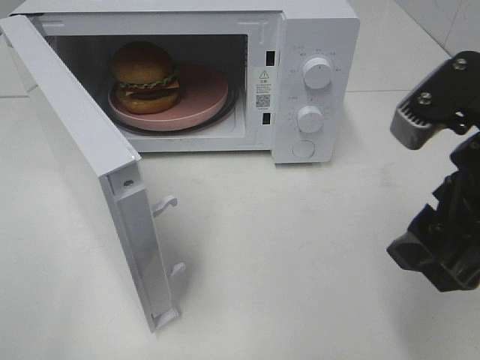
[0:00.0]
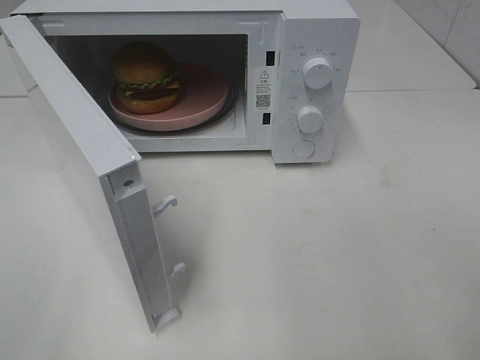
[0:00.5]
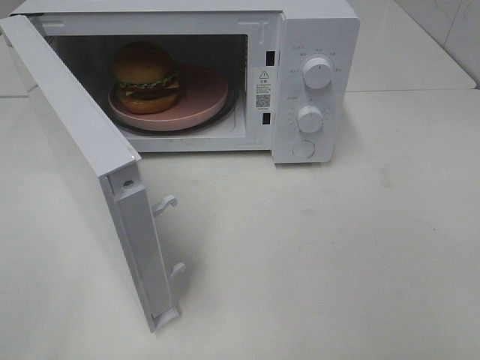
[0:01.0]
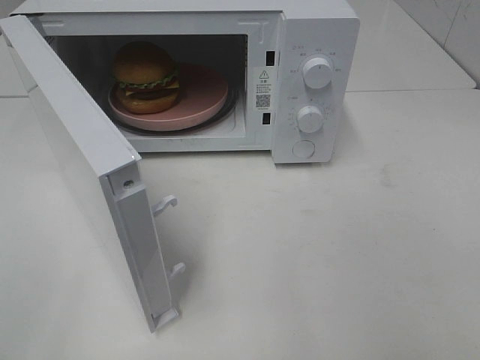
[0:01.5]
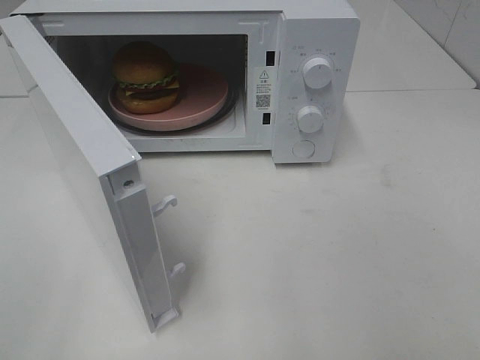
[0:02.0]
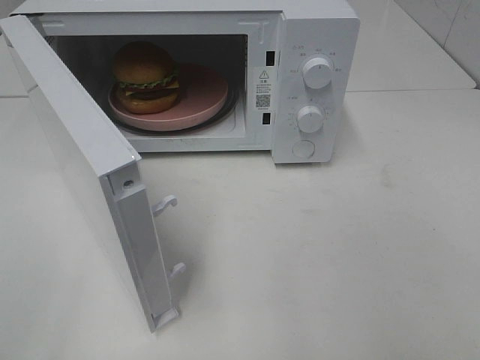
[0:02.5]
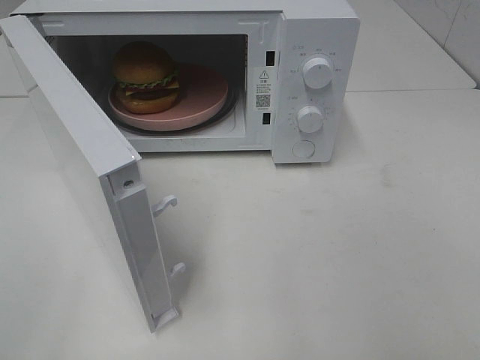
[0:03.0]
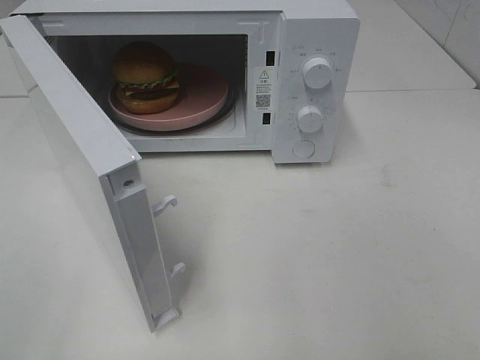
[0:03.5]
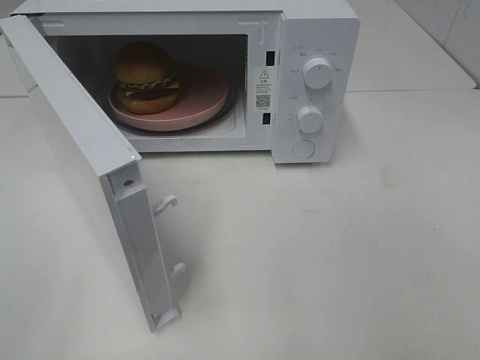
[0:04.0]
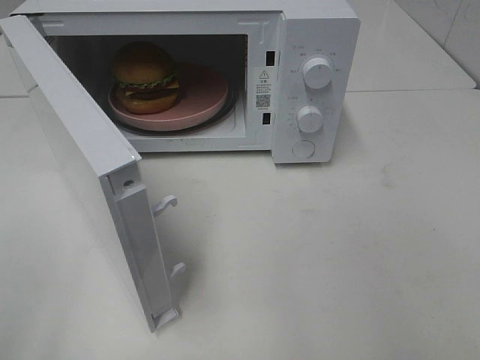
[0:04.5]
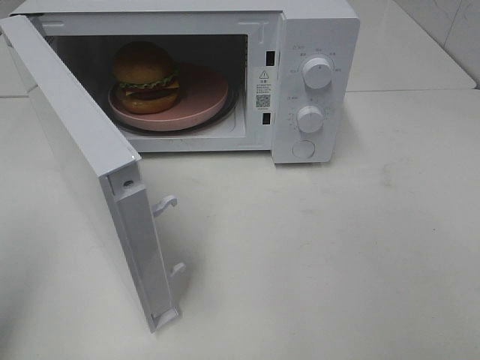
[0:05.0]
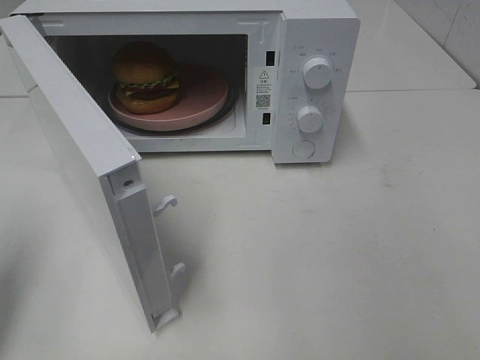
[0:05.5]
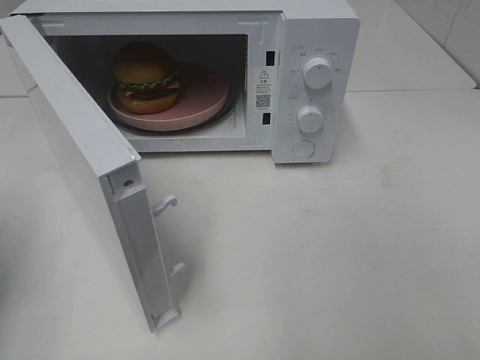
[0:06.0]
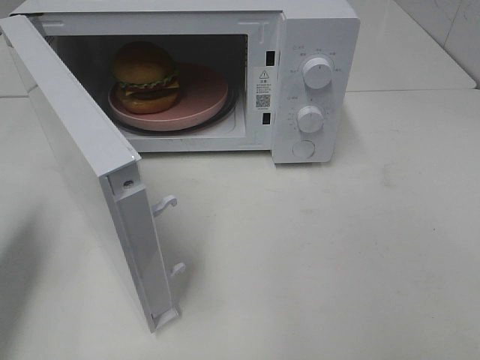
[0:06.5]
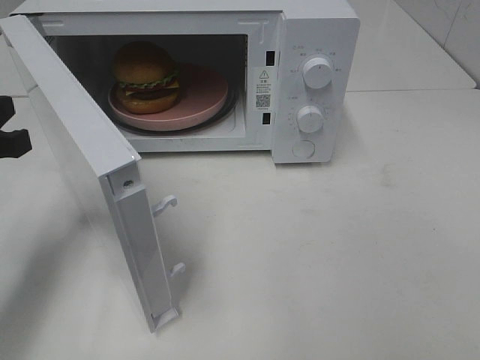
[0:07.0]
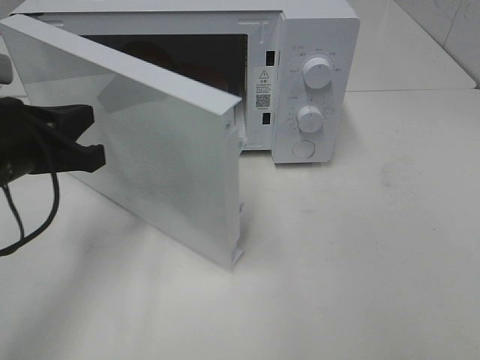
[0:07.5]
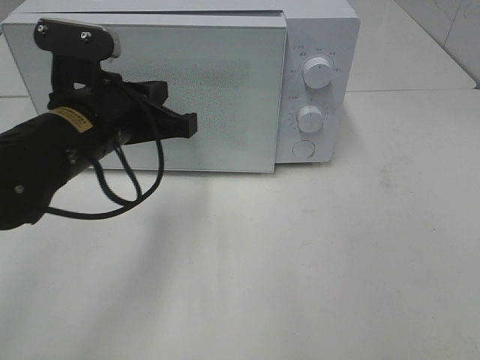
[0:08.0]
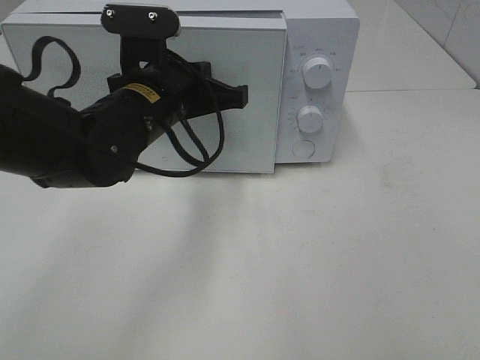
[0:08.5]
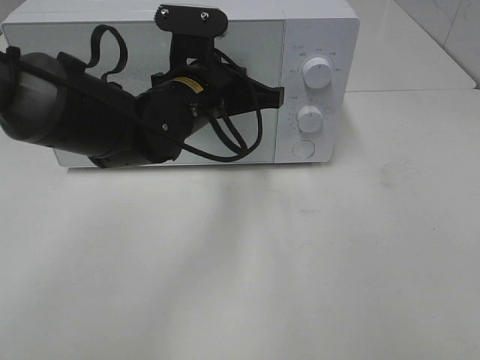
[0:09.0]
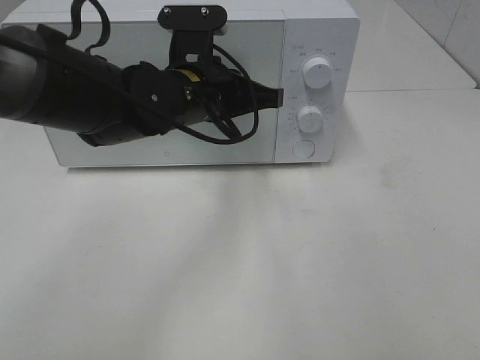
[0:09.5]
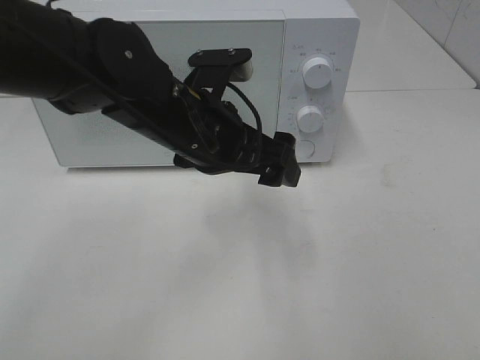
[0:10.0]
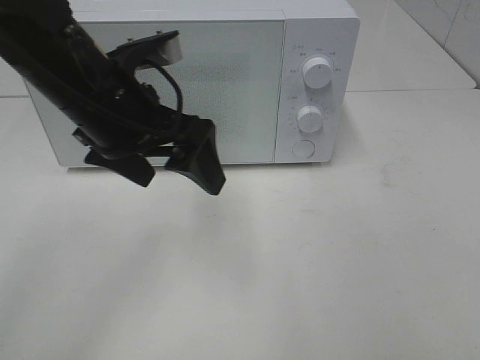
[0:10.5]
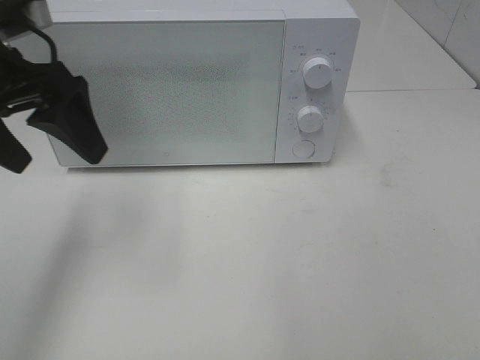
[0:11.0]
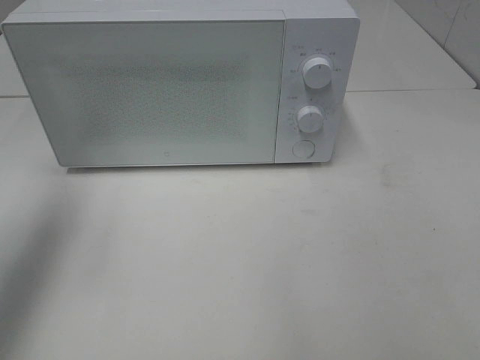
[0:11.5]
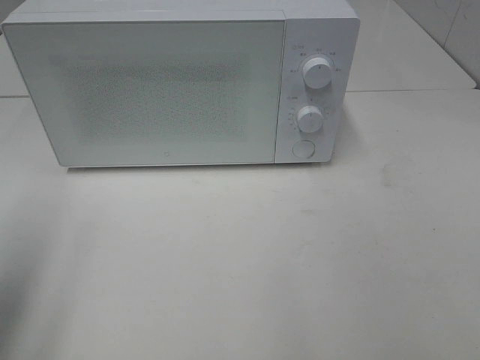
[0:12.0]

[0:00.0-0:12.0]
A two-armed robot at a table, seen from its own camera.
Task of the whole recording: Heat the burger.
Step, 0:00.0 to 0:09.5: Left hand: close the microwave door.
0:00.0 to 0:02.0: The right gripper travels backward and to the right by some 20 cm.
0:02.0 to 0:04.0: Neither gripper changes place.
0:04.0 to 0:06.0: The left gripper moves forward, some 20 cm, and closes up.
0:06.0 to 0:08.0: The left gripper is displaced to the right and forward by about 25 cm.
0:08.0 to 0:10.0: The left gripper is displaced to the right by approximately 10 cm, and opens its fingers.
0:10.0 to 0:12.0: The left gripper goes roughly 30 cm to the left and backward.

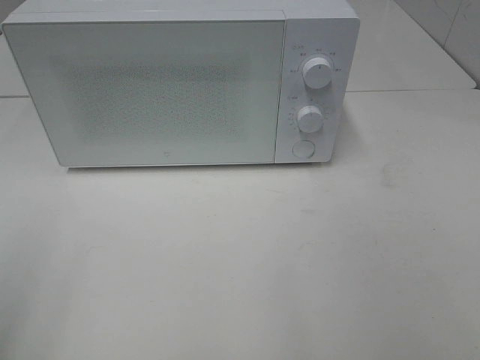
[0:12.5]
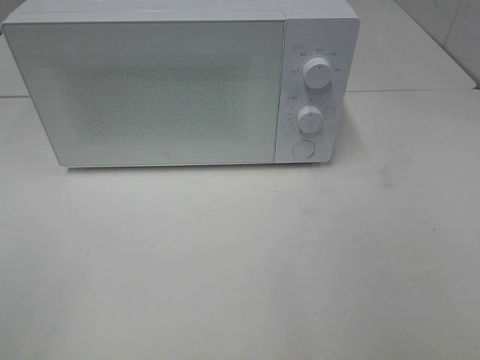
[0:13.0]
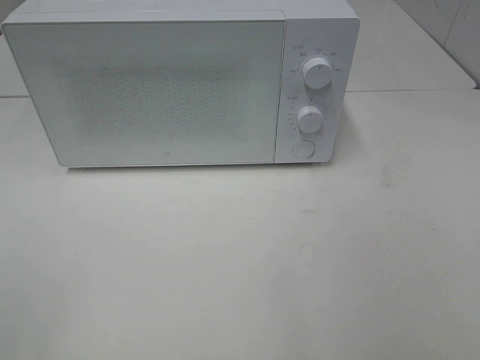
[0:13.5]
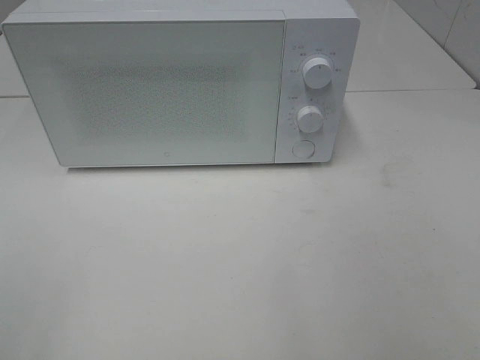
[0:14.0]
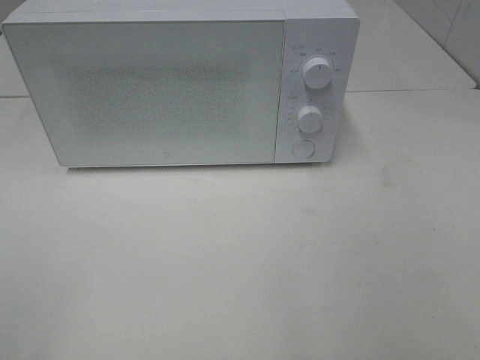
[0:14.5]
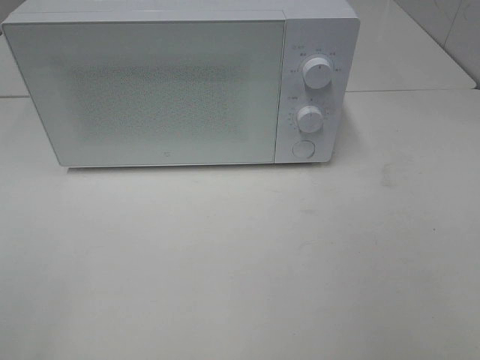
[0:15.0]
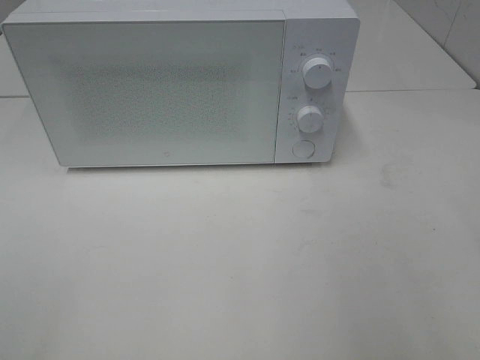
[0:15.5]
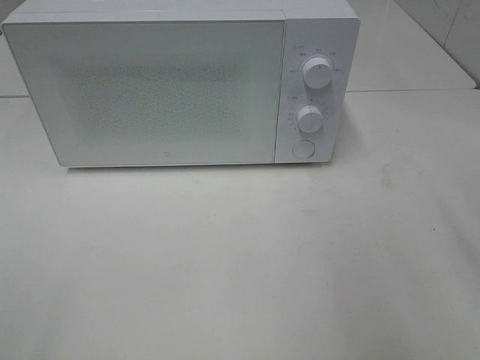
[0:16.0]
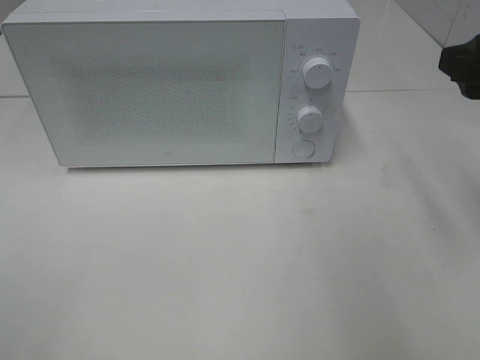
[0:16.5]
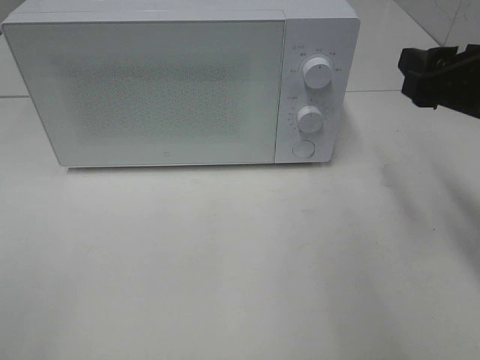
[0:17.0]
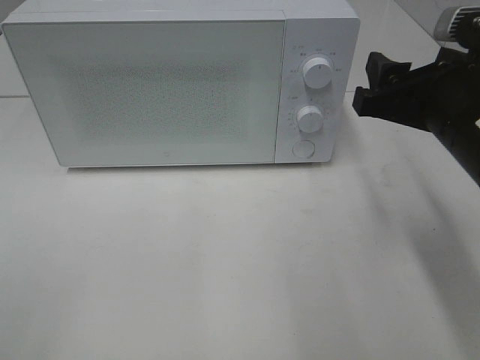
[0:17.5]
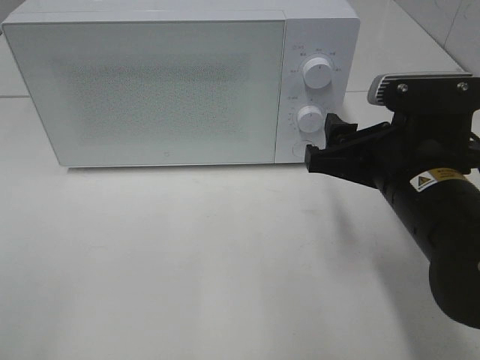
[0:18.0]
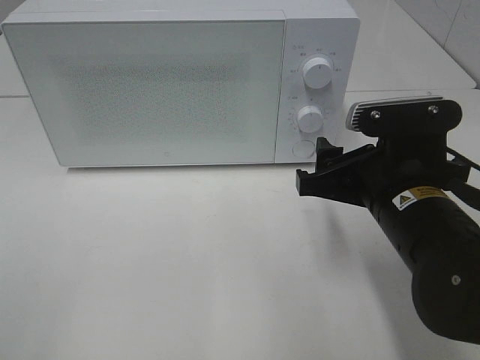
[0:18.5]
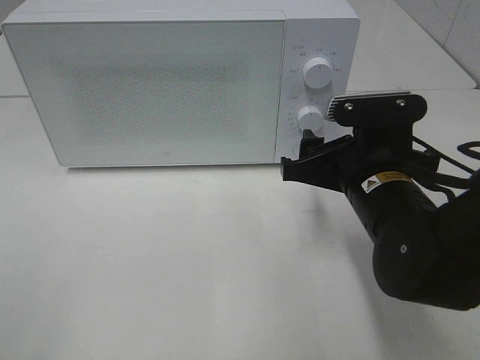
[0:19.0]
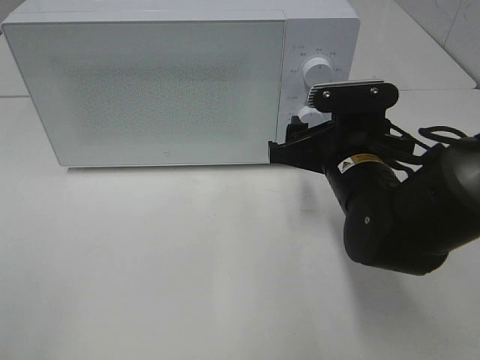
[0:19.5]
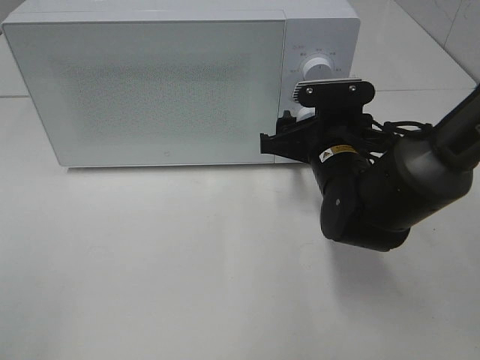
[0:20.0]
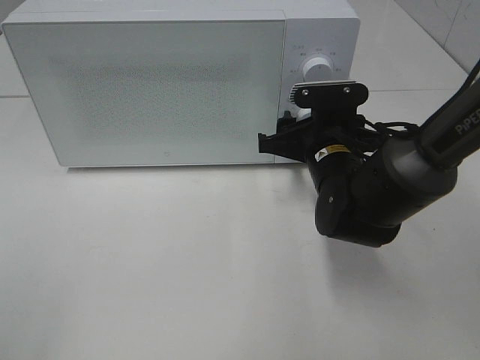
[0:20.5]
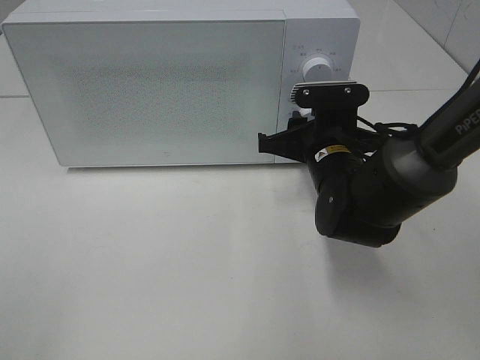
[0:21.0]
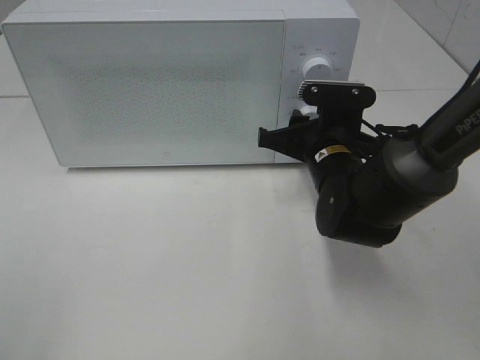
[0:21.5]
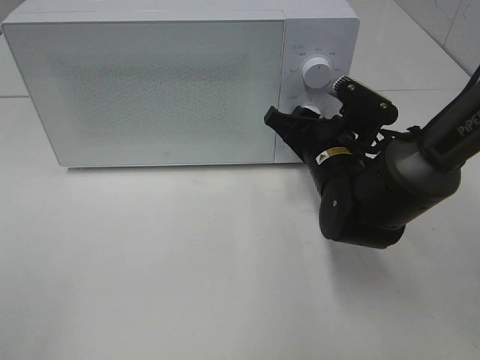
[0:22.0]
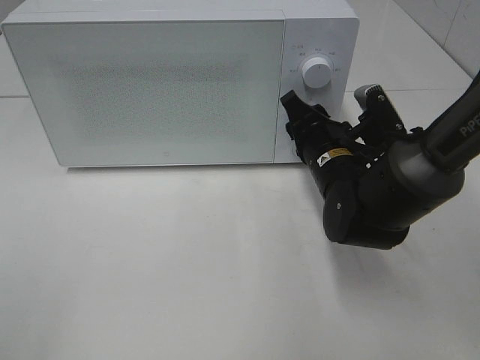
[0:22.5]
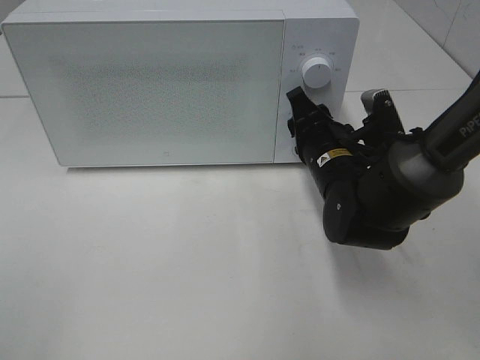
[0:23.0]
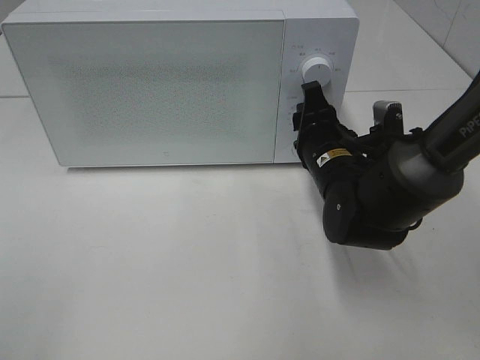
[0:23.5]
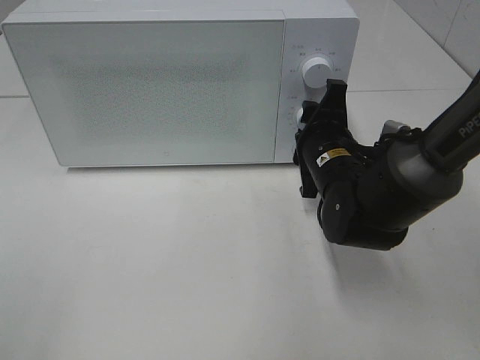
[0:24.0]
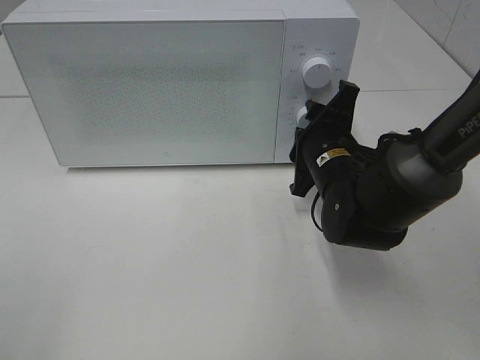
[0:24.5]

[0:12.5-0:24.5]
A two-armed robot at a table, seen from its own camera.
Task of the whole recording: Heat the burger.
0:14.5 to 0:16.5: The right gripper goes some 20 cm forward.
0:16.5 to 0:18.5: The right gripper goes some 15 cm downward and to the left.
0:18.5 to 0:20.5: The right gripper shifts roughly 10 cm forward.

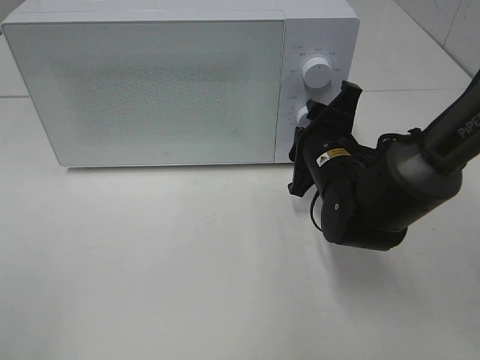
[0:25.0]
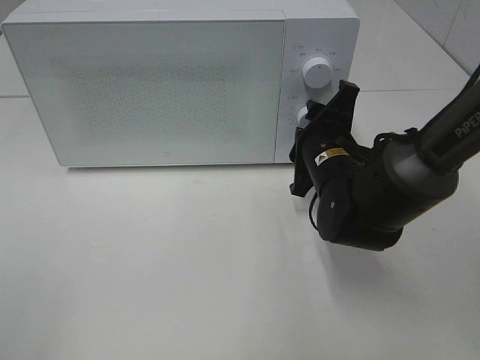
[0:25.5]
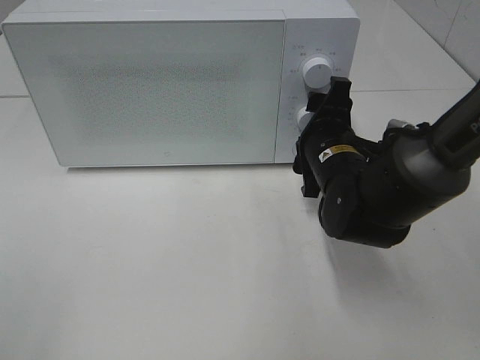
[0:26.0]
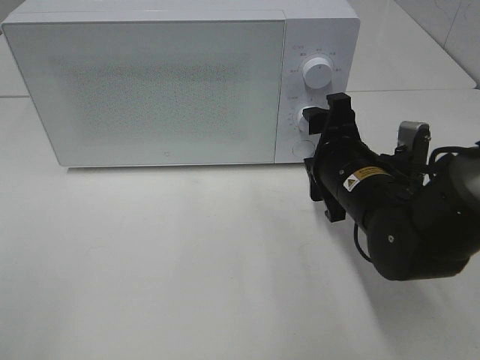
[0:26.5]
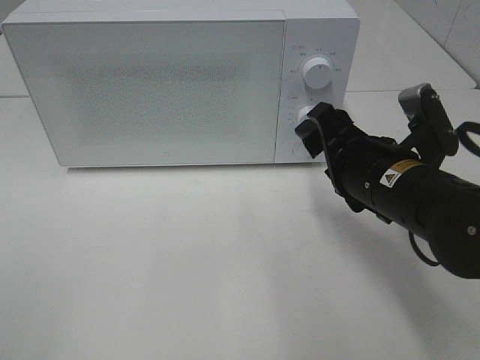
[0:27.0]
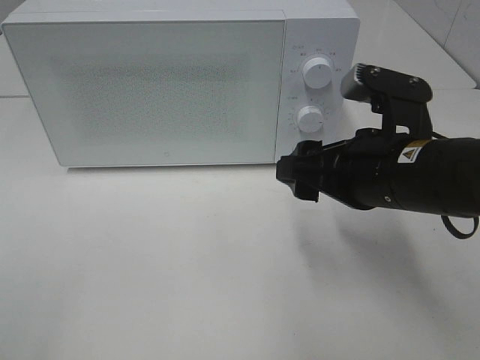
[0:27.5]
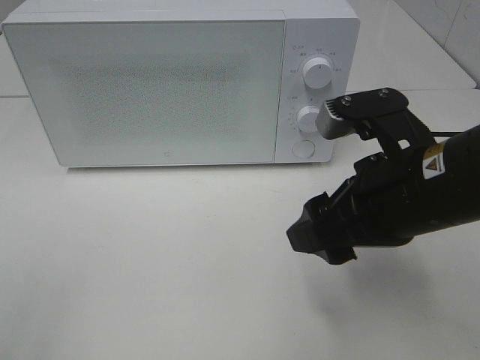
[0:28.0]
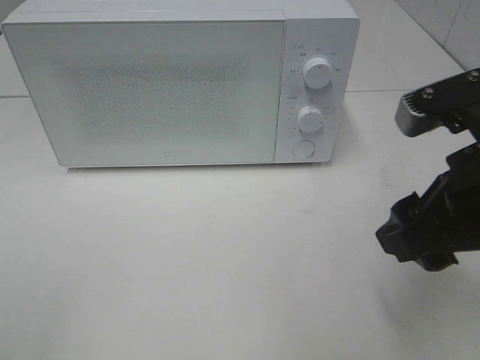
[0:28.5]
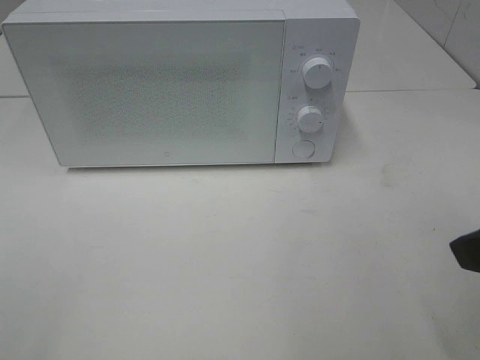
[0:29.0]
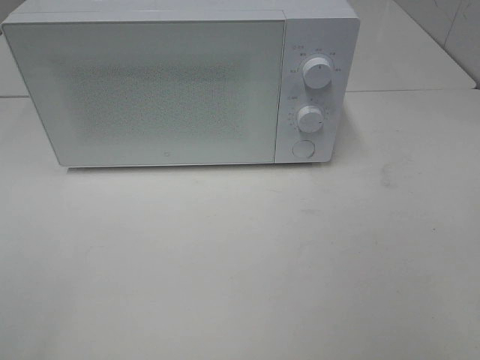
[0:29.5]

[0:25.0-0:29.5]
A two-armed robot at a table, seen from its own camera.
Task of the whole recording: Heat the burger.
0:25.0 to 0:27.0: The right gripper is displaced backward by some 10 cm, and opens up.
0:27.0 to 0:29.5: The right gripper shifts roughly 25 cm backward, upward and to the right.
